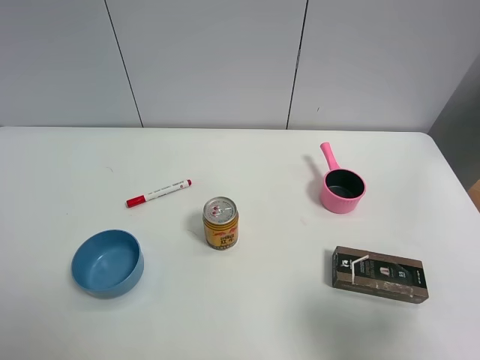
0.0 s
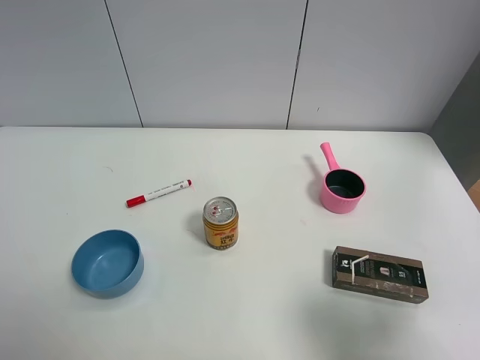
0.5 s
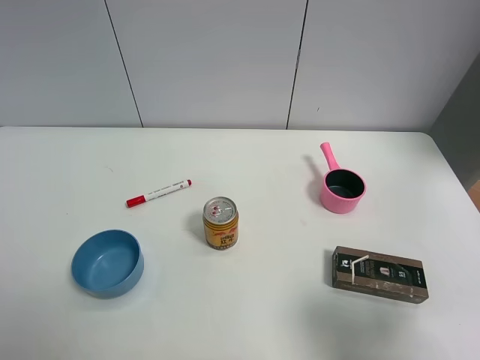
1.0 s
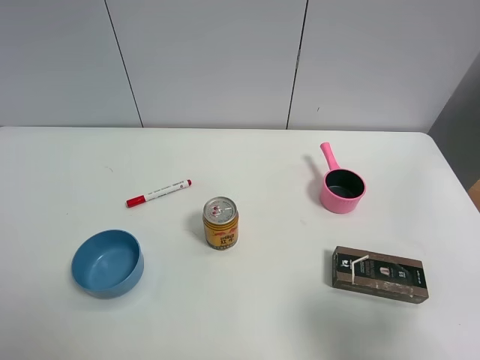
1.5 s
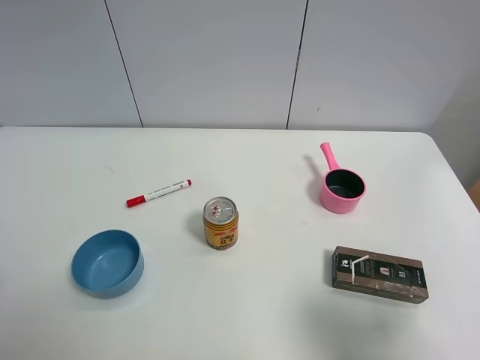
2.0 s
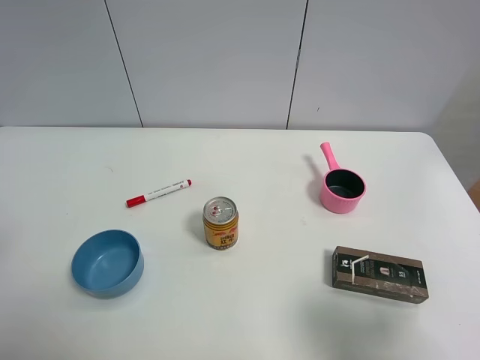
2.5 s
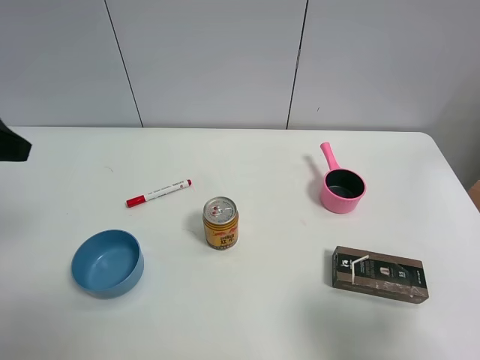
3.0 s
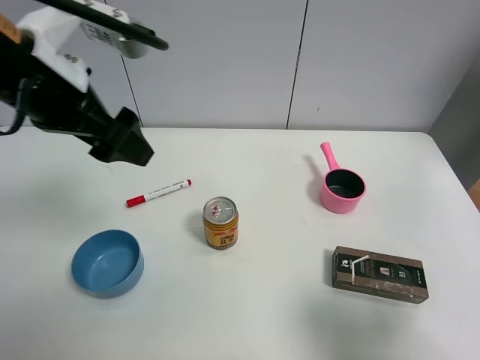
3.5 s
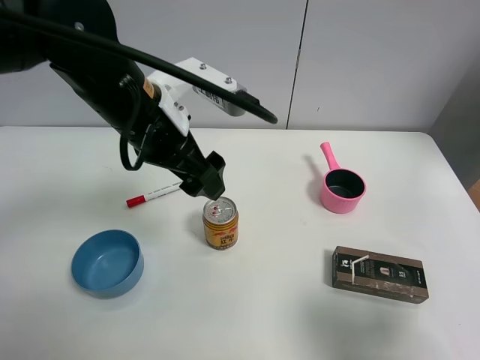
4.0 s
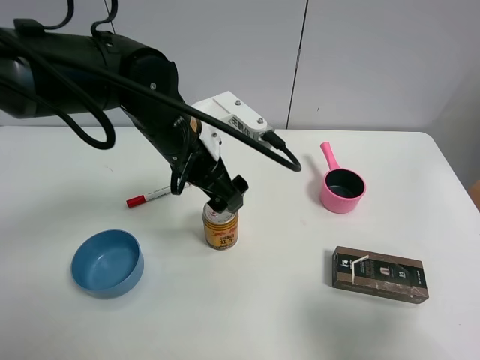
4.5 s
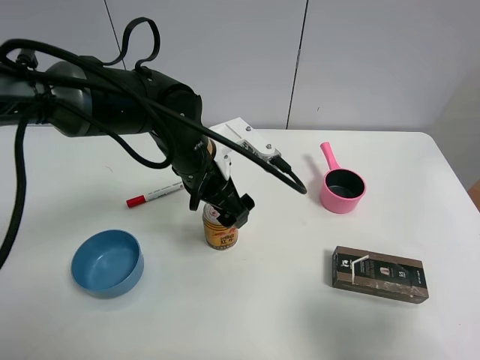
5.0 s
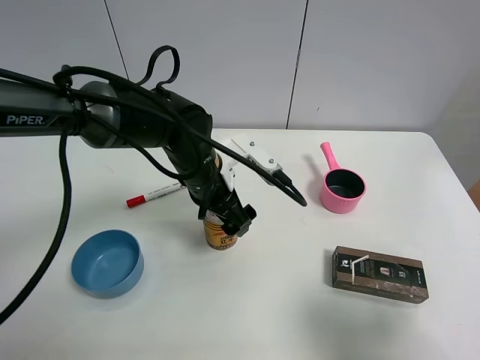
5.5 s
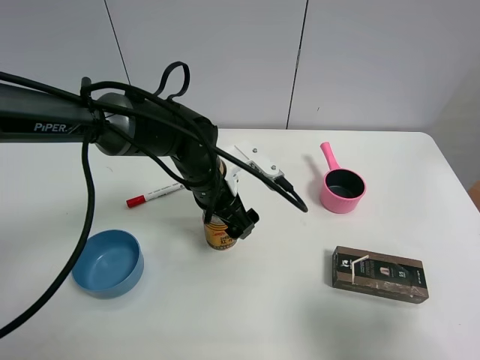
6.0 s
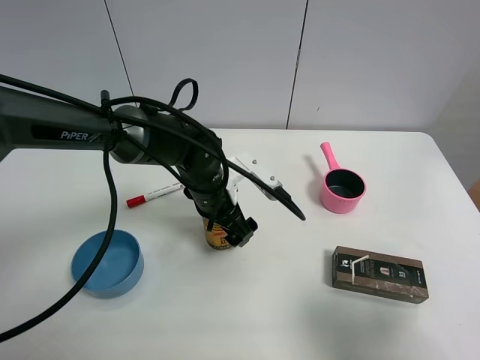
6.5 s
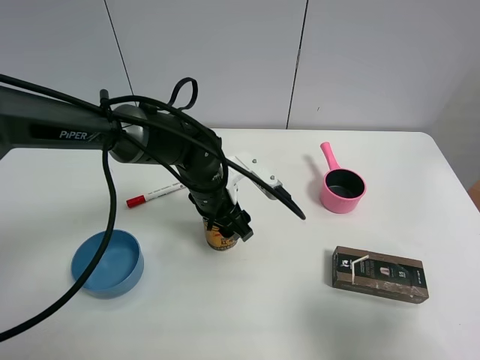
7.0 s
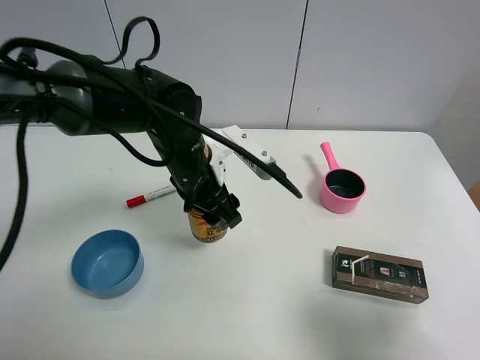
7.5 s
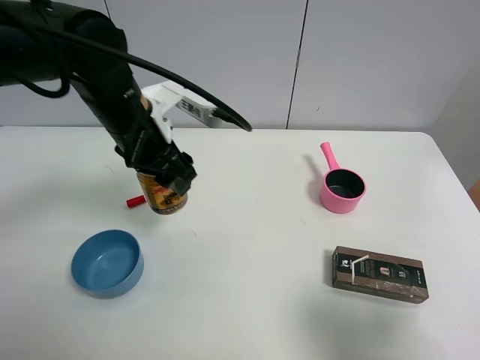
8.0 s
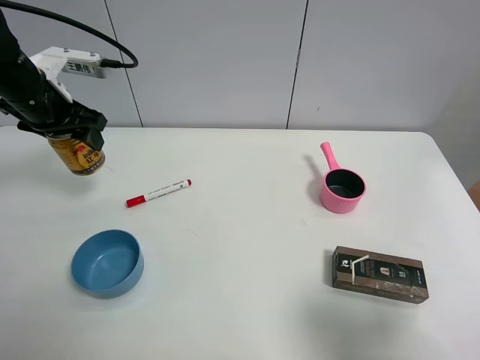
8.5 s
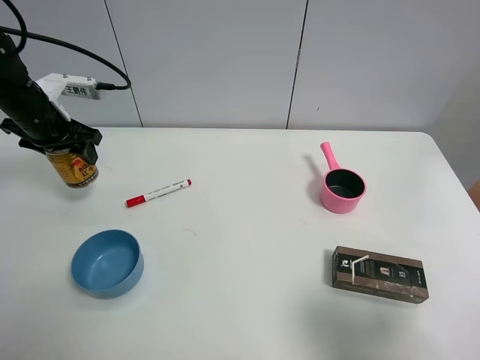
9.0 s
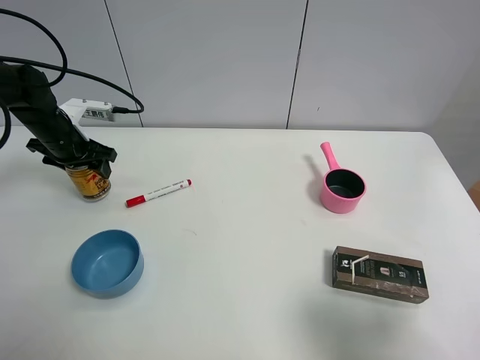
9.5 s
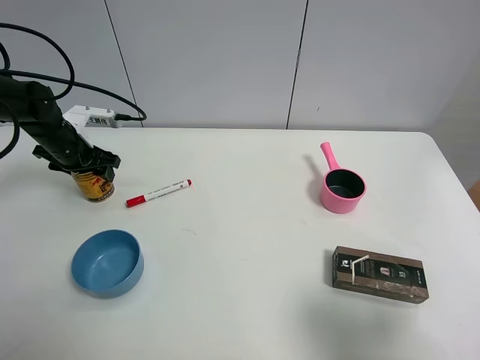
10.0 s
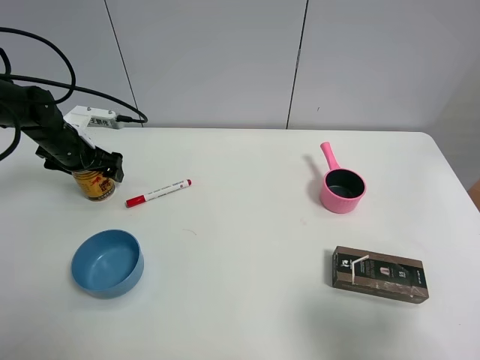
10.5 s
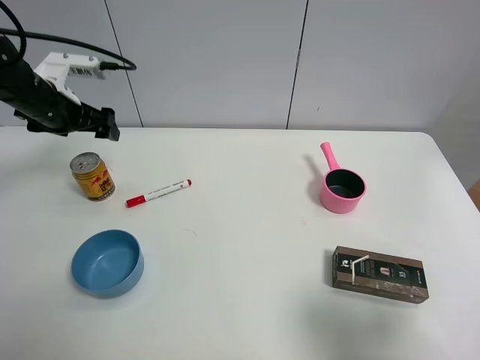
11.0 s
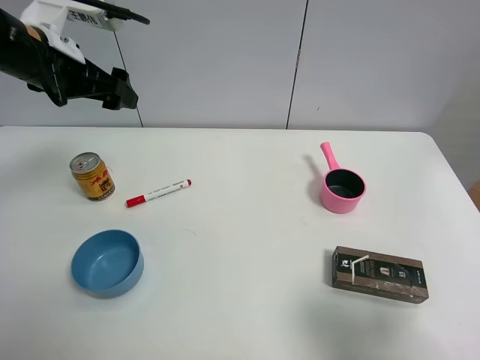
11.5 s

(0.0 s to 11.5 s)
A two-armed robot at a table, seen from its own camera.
Task of the whole recording: the gripper move the object.
Step, 0.0 s - 6.5 s: Grasp the red bull with the left gripper.
Step, 7.0 s - 10.5 s: Place the red bull on the table with the left gripper.
0.0 s - 2.0 s: There are only small adjustments of the grippers.
2.0 s - 4.0 s: The left gripper shifts some 30 cm forward and to the right.
4.0 s - 6.0 s: The left gripper goes roughly 15 cm downward and to the right.
6.0 s - 7.5 s: The left gripper travels upward by some 5 cm, and closes its fingers.
7.5 s - 9.5 s: The left gripper goes about 30 cm to the left and forward.
9.5 s - 11.5 s: The left gripper moves upward, backward and to the right, some 20 cm, and opens up.

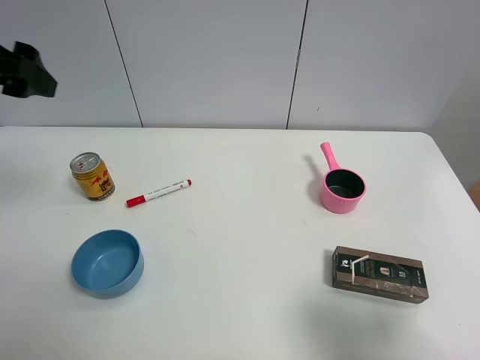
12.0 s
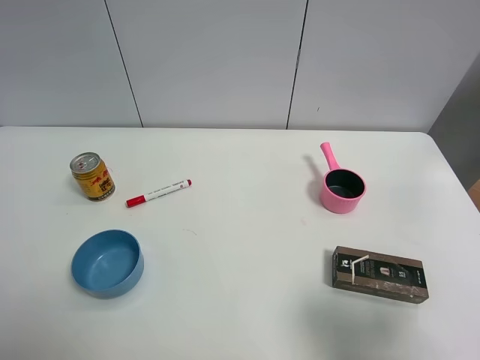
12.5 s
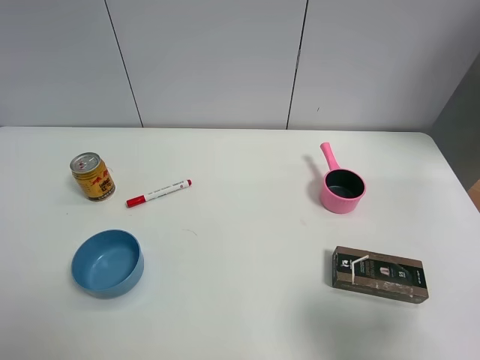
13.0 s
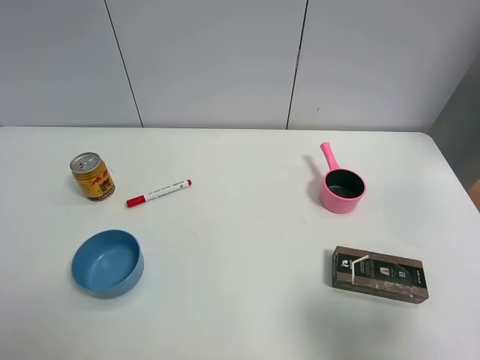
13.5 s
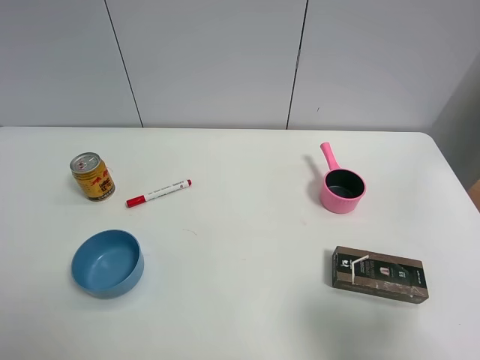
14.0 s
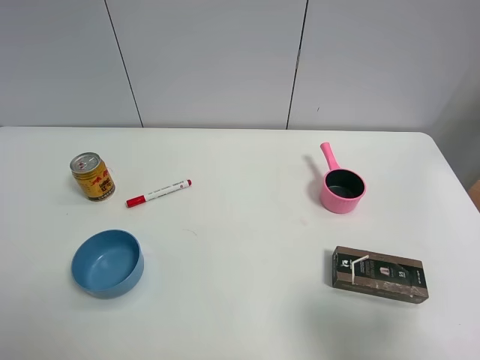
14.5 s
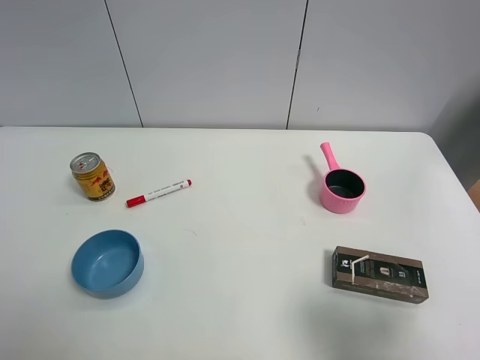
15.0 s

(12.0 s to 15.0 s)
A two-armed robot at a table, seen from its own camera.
Task of the whole recording: the gripper move the object.
12.0 s - 13.5 s: The left gripper is displaced backward by approximately 25 cm.
13.5 s - 15.0 s: The two grippers keep their place.

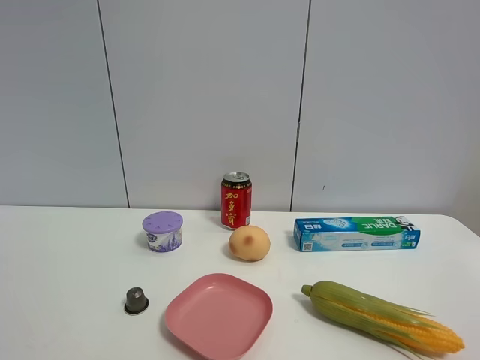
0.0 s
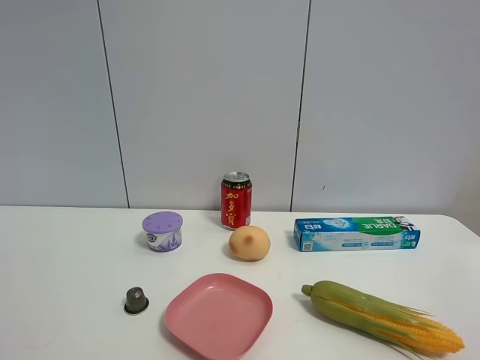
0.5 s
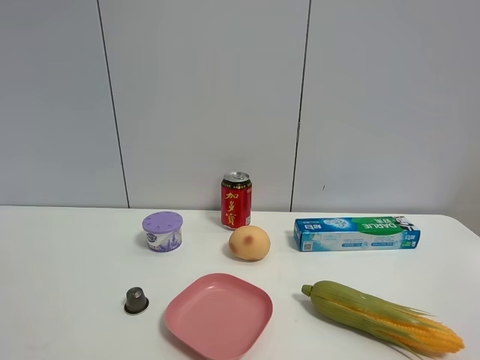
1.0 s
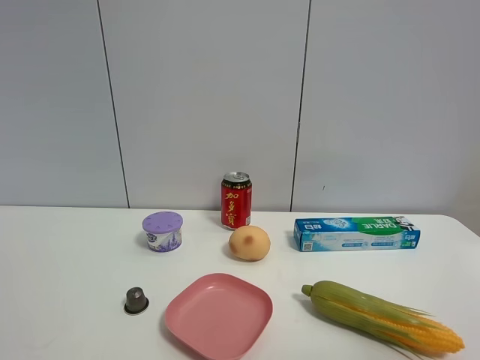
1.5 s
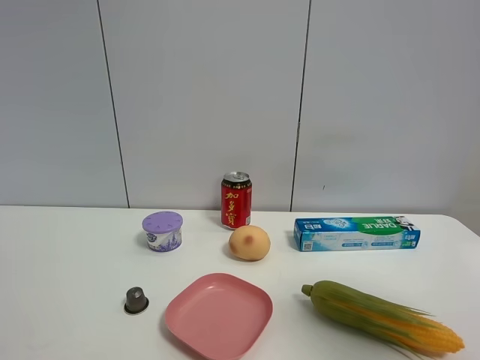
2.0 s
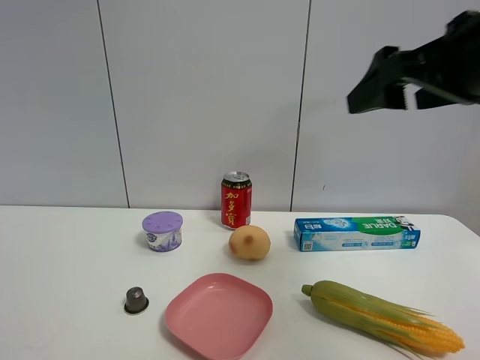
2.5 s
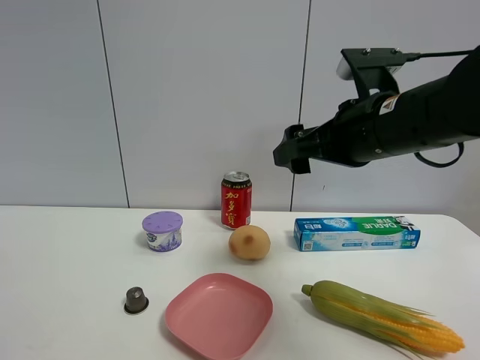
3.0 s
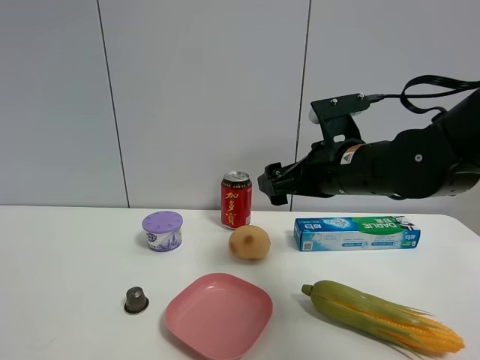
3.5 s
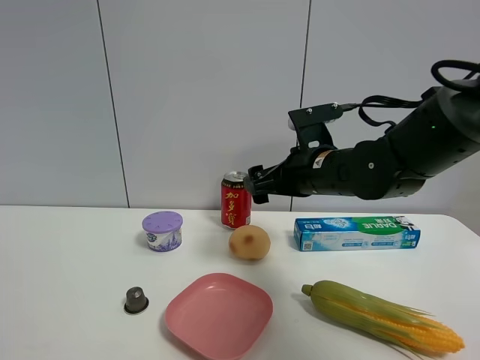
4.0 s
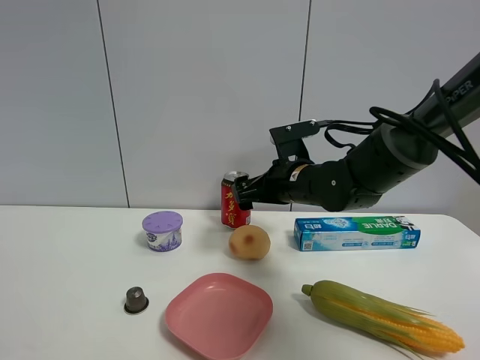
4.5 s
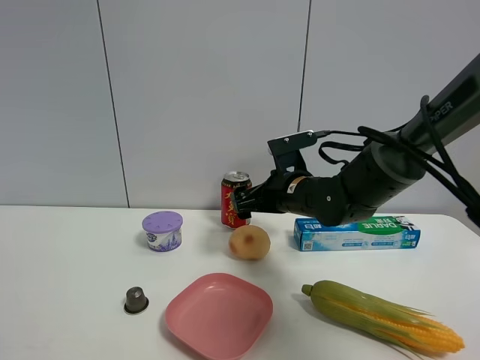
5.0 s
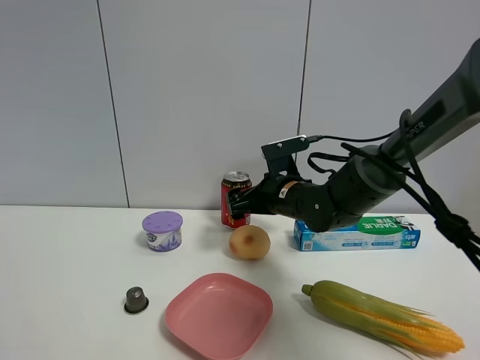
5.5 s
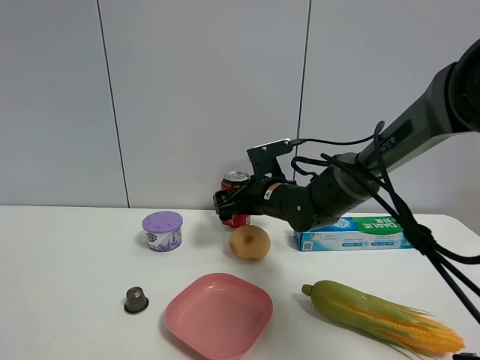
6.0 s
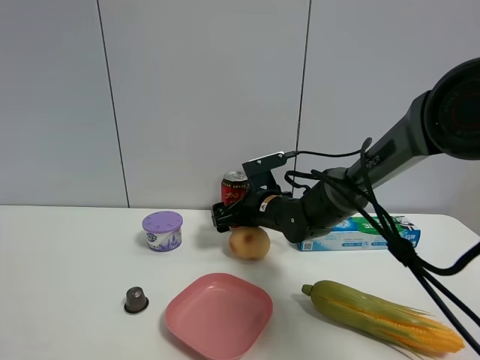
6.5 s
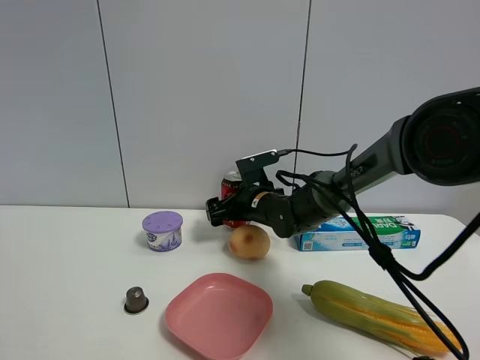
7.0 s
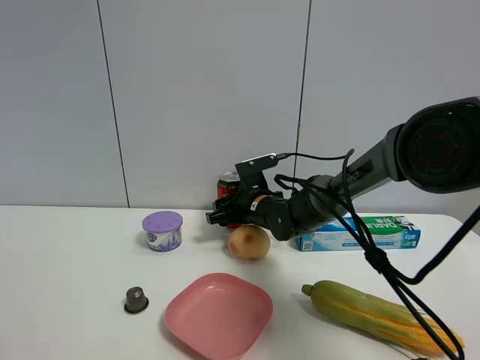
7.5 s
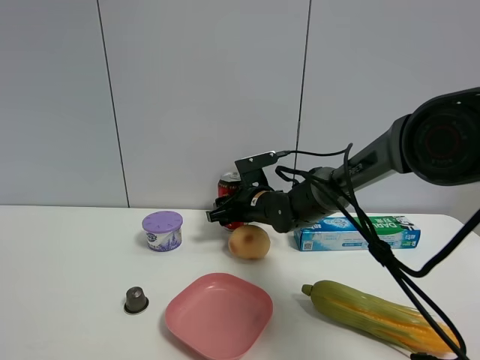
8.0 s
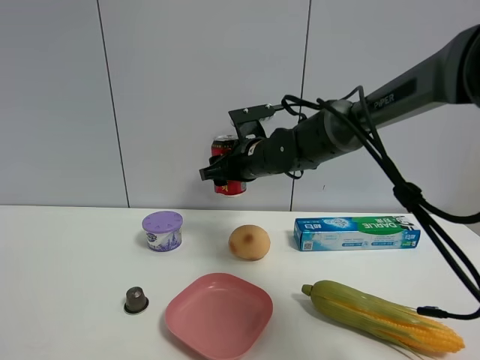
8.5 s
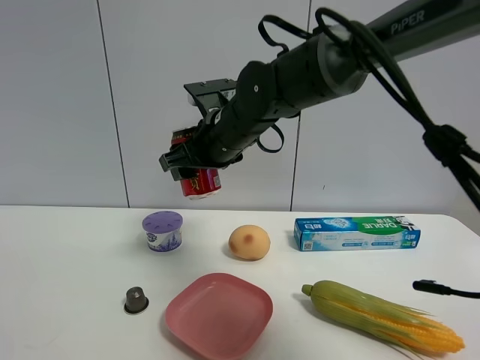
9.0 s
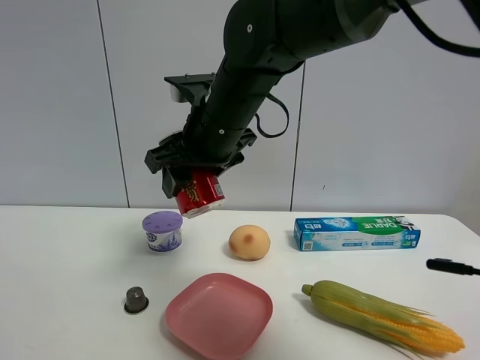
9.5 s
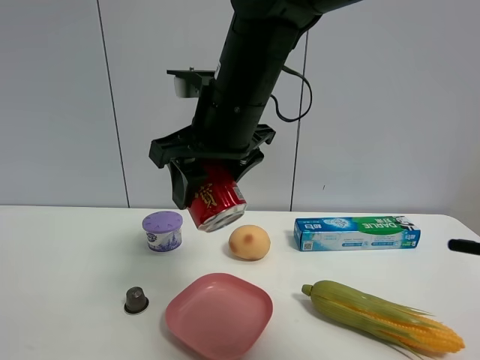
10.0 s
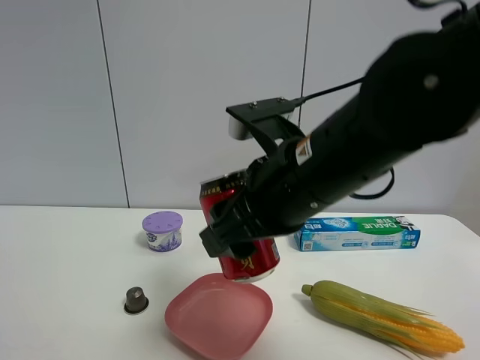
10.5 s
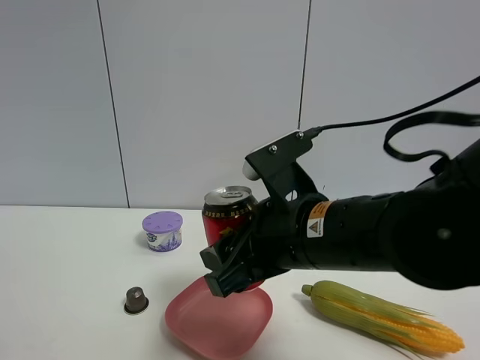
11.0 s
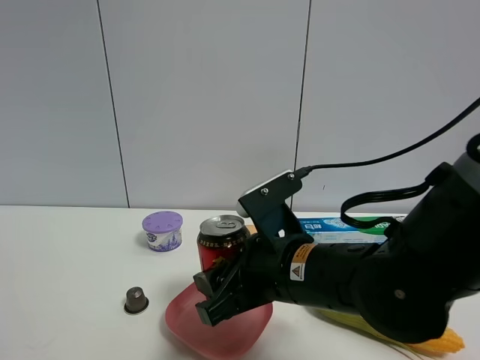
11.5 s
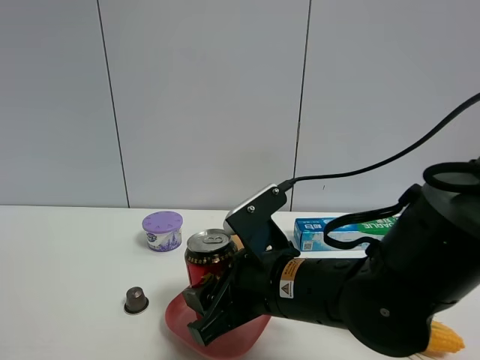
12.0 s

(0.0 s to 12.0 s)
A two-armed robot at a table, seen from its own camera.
Task of the whole recording: the gripper move the object.
Step, 0.0 s - 7.5 s: Grasp the Jia Duo Bao with the right gripper.
0.0 s - 2.0 s: The right gripper travels forward by about 15 cm.
2.0 s - 4.0 s: The right gripper is displaced forward, to the left and downward by approximately 35 cm.
4.0 s - 6.0 s: The right gripper heads forward, downward and to the left, covering some 10 cm.
6.0 s - 8.0 s: The right gripper closes up.
8.0 s - 10.0 s: The right gripper is displaced upward and backward by some 25 cm.
10.0 s - 12.0 s: The right gripper travels downward by approximately 15 cm.
